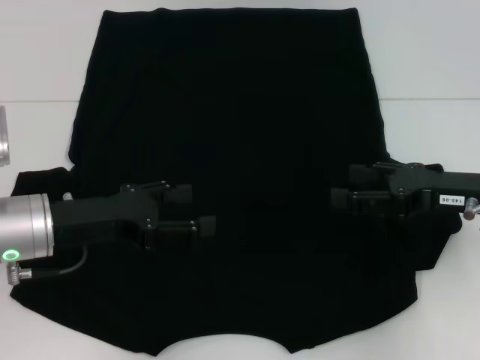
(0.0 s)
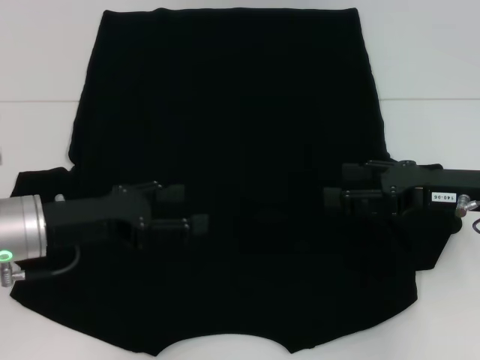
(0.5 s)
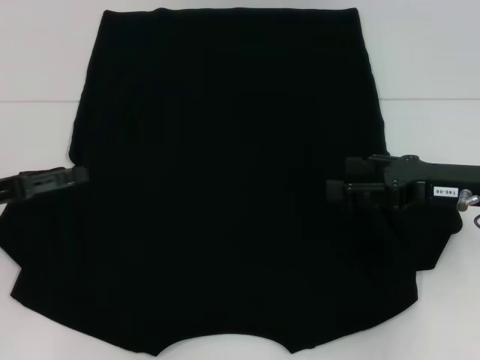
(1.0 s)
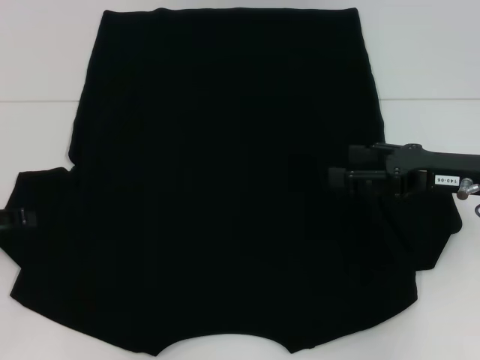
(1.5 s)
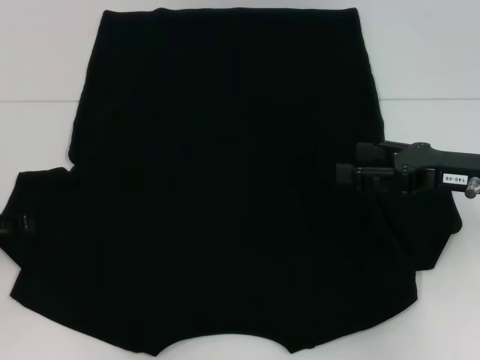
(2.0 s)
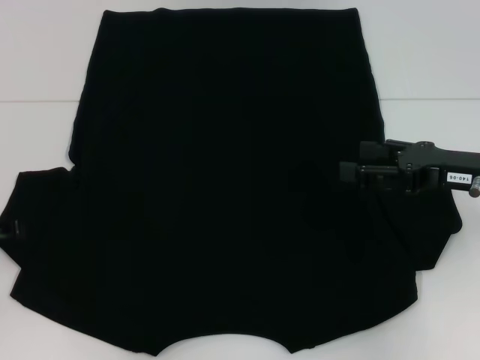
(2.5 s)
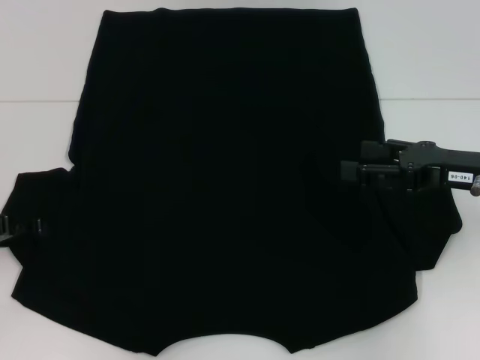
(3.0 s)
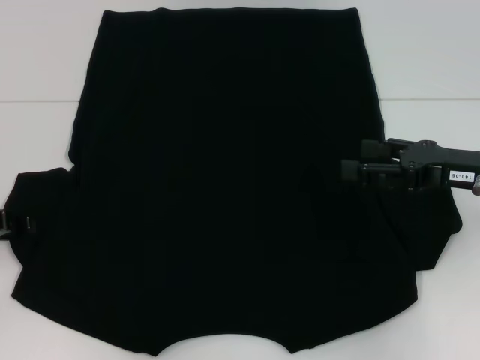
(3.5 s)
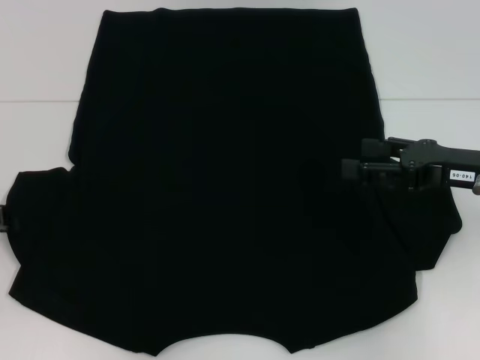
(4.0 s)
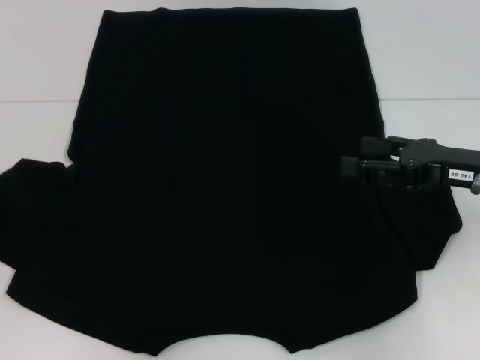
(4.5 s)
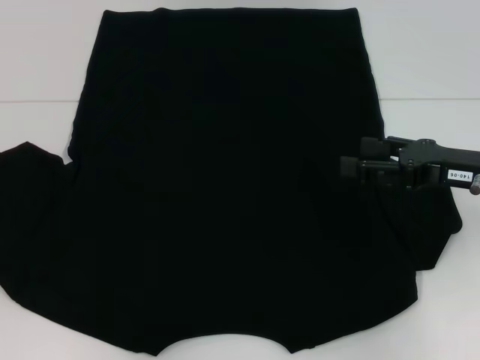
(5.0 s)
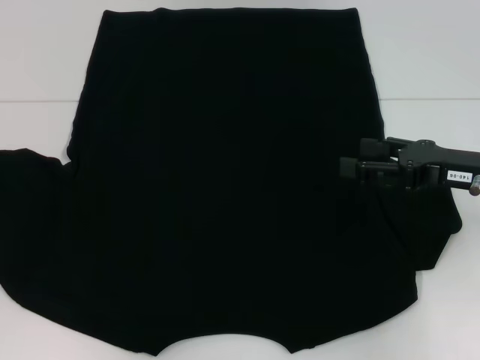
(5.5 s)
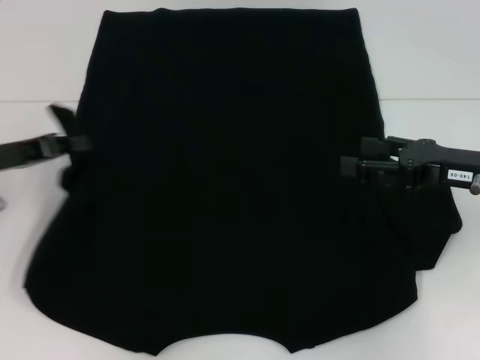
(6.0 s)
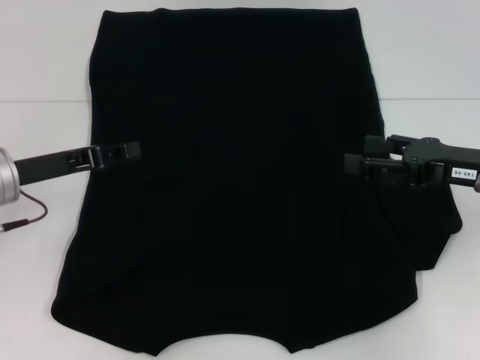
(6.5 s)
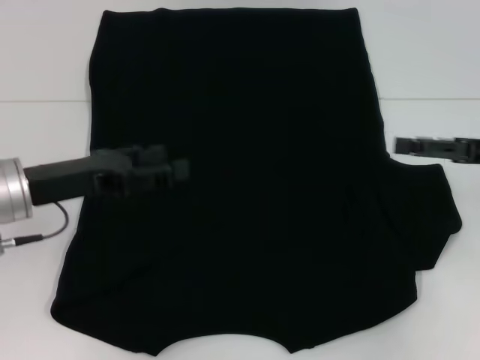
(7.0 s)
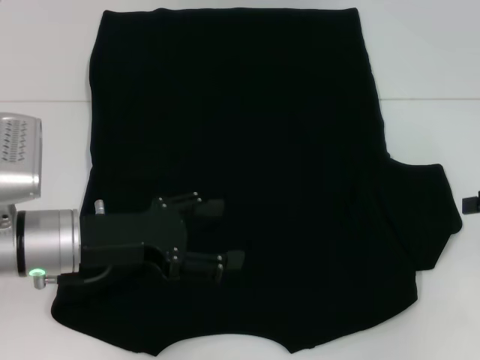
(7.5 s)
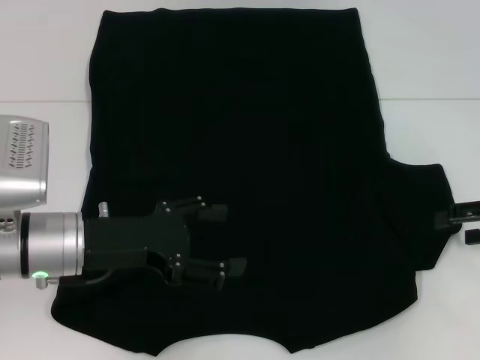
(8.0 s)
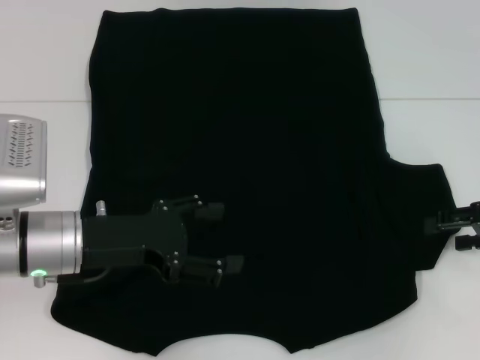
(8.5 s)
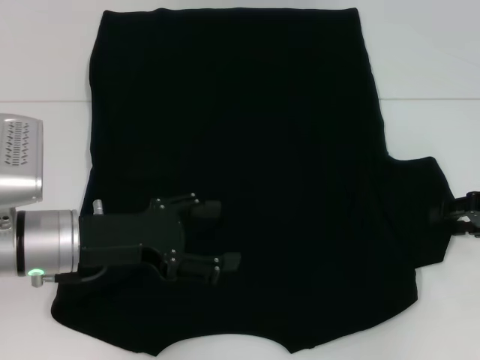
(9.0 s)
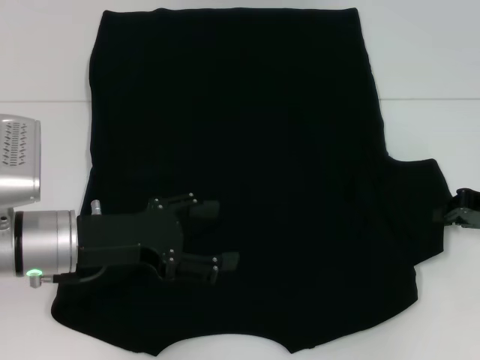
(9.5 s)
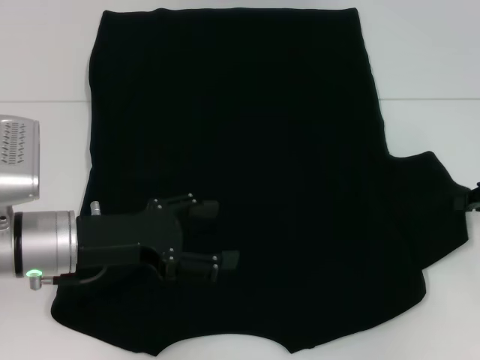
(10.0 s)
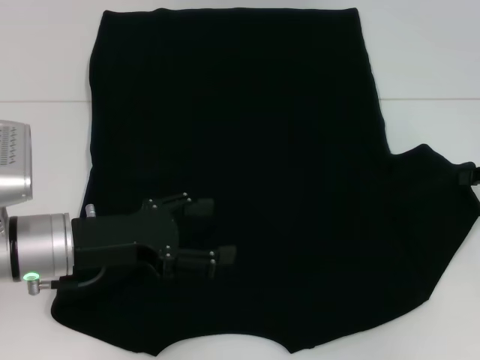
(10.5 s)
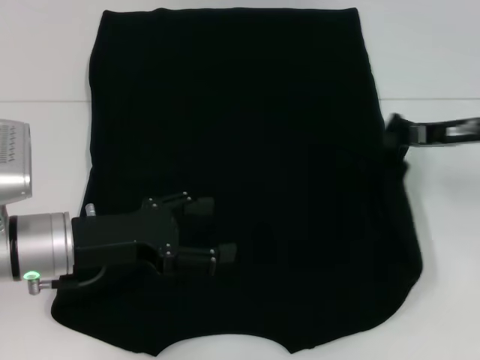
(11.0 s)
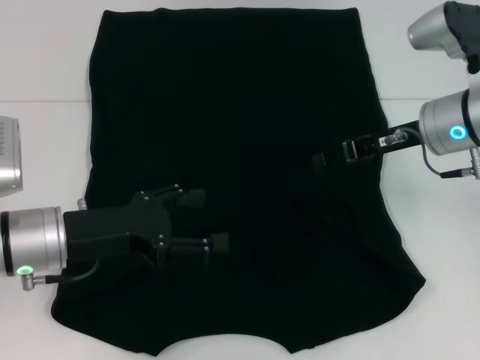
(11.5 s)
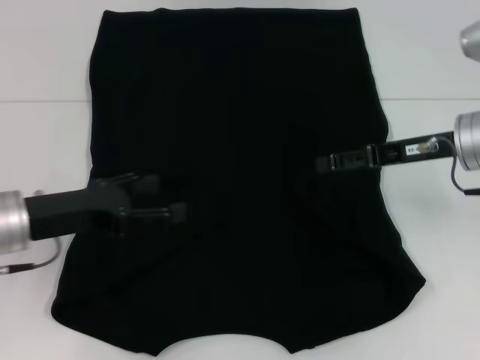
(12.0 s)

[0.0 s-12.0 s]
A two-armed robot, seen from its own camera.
Step, 0.0 to 6.5 s: Fold the bottom left sleeve with your left hand.
Step, 7.0 to 11.5 s: Fold the bottom right sleeve with your right hand.
0.0 to 2.0 s: The left gripper moves to the left, approximately 15 cm.
4.0 to 6.0 s: The left gripper shifts by some 5 cm.
6.0 to 8.0 s: Both grippers move to the right, roughly 10 cm. The left gripper opens up.
8.0 to 10.0 s: The right gripper closes.
10.0 to 12.0 s: The right gripper shifts some 10 cm to the left, and opens.

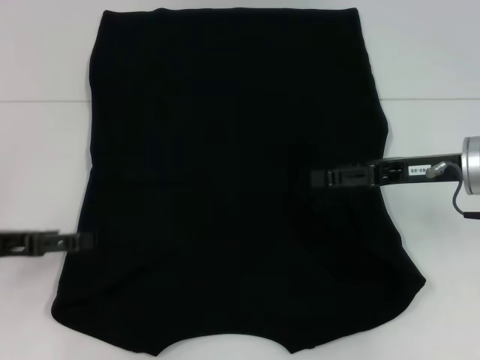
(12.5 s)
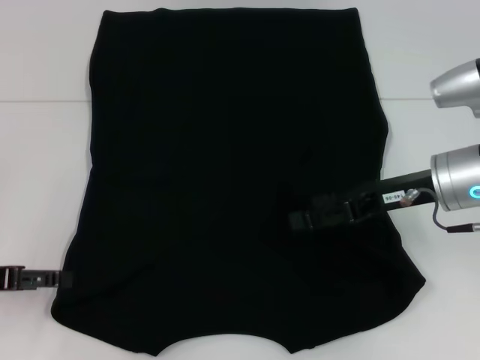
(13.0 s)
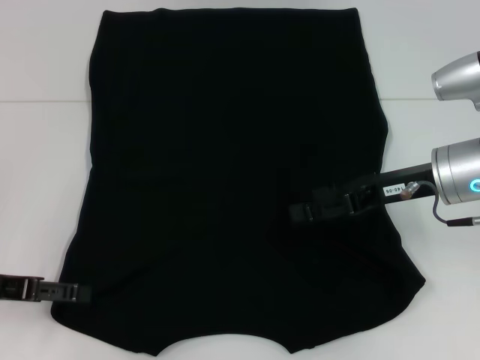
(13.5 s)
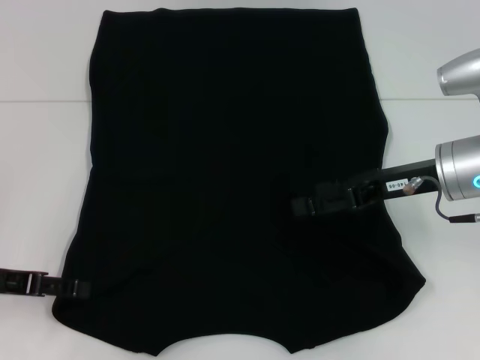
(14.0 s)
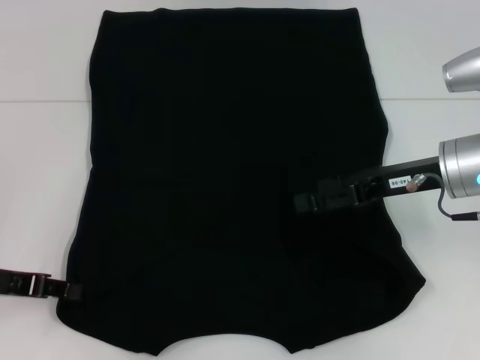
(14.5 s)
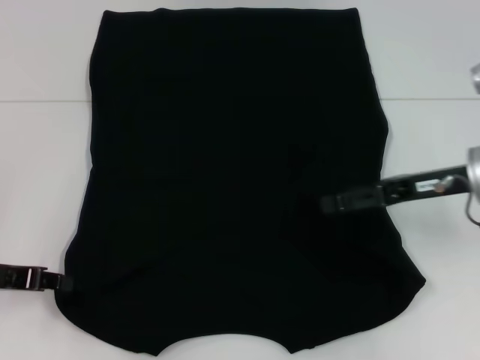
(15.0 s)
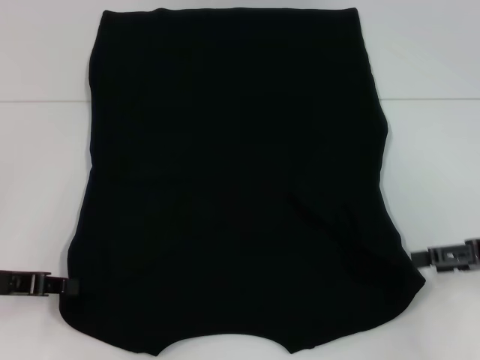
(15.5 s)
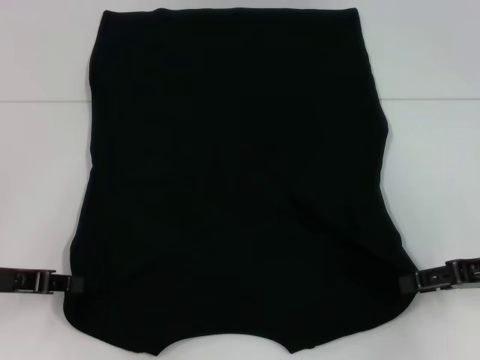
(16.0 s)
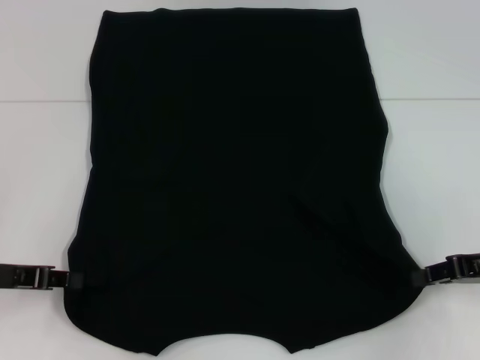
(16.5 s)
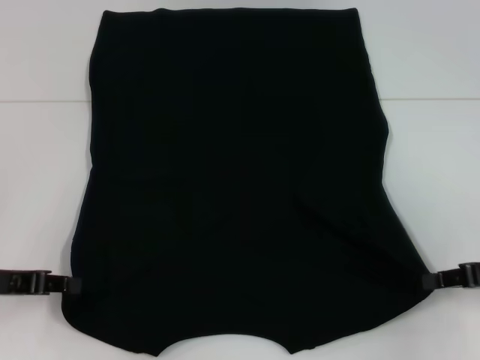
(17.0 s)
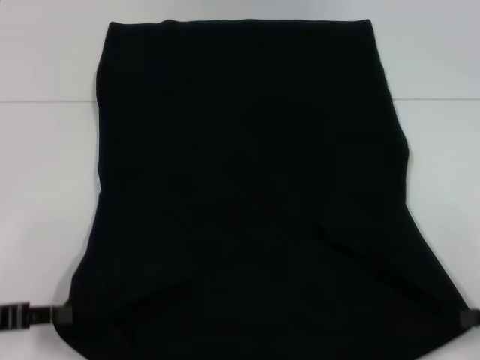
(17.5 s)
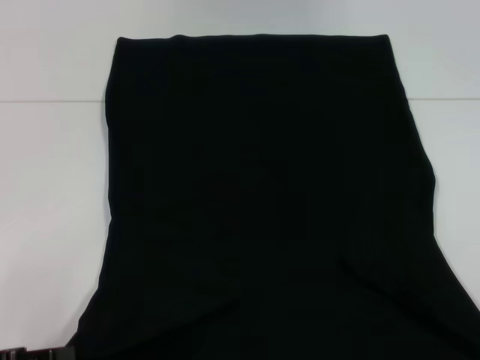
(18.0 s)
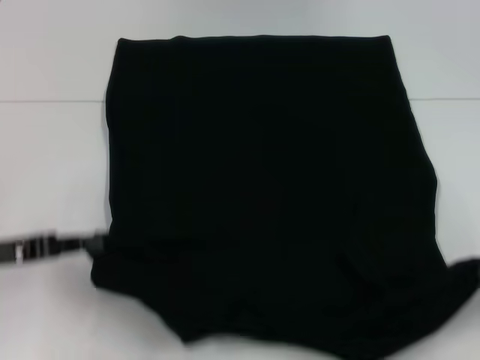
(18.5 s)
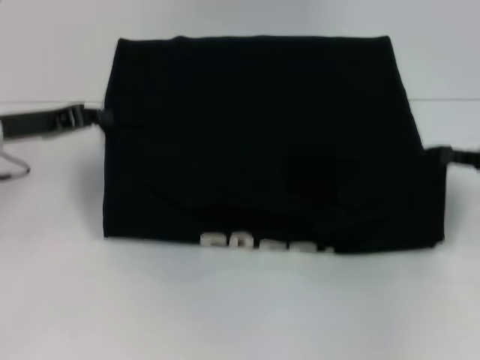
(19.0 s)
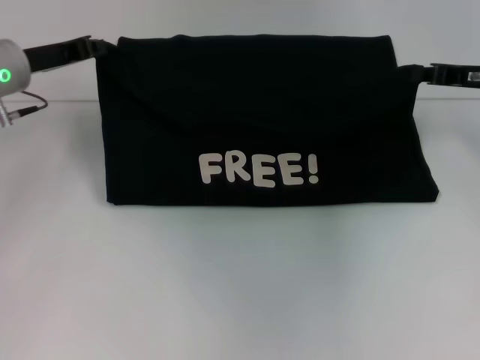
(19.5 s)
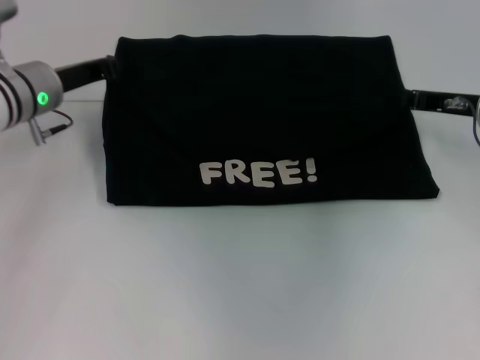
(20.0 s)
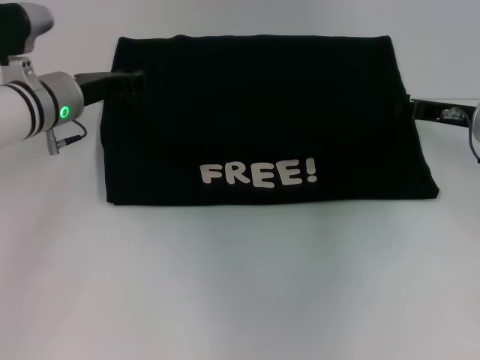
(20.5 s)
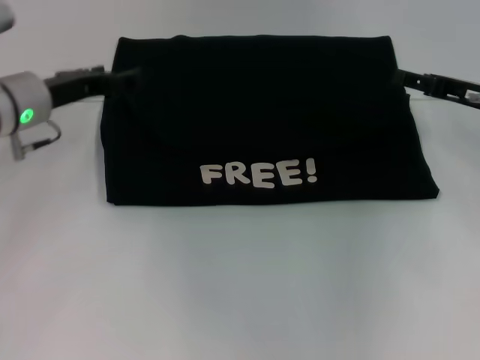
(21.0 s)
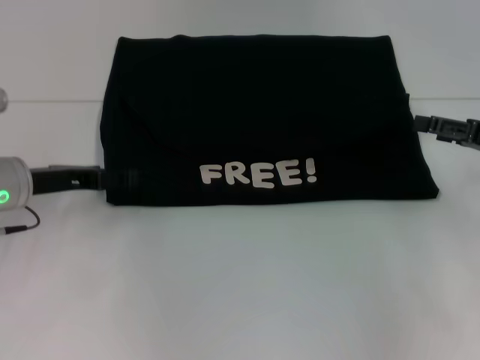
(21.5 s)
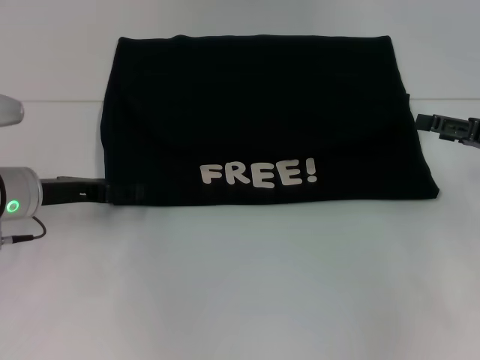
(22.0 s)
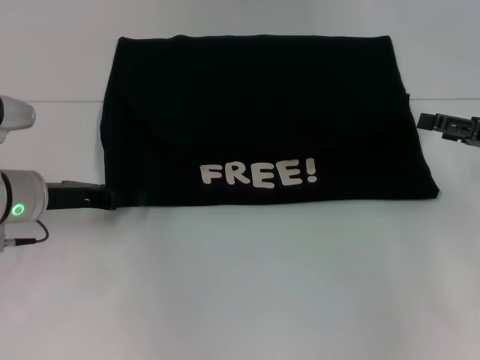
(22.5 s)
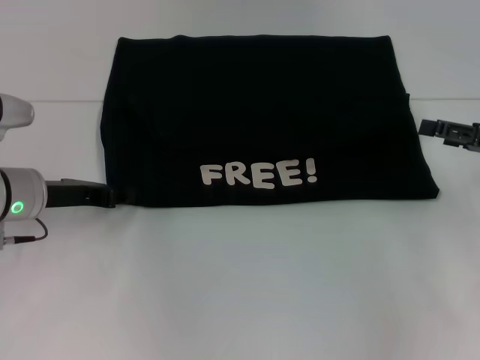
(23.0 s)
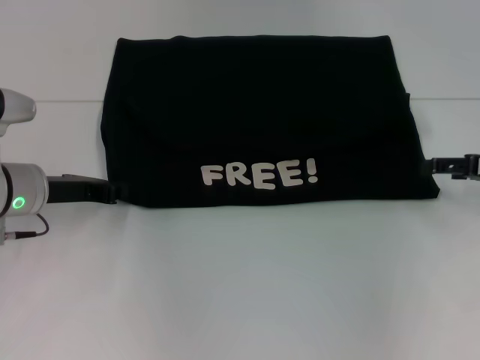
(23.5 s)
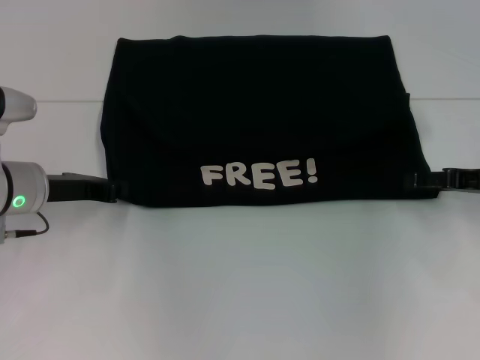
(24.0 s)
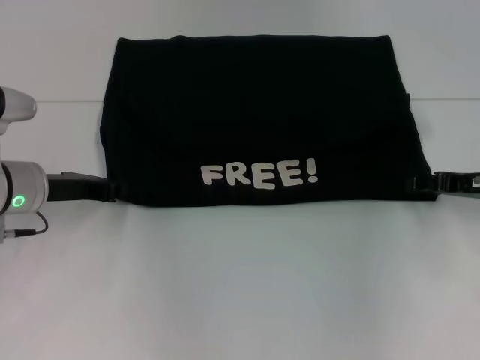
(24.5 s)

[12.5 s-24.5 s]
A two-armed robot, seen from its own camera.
Step, 12.5 to 15.0 s: Grab the bottom left corner with your left hand.
Step, 15.5 to 16.5 s: Grab the bottom right corner with your right hand.
Step, 17.0 to 20.5 s: Fold the clothes with your left hand.
Step, 17.0 to 20.5 s: Fold the clothes with your right hand.
12.5 to 14.5 s: The left gripper closes up.
14.5 to 16.5 s: The right gripper goes roughly 10 cm to the right and backward, and closes up.
16.5 to 18.5 s: The right gripper moves backward and to the right, about 10 cm. Meanwhile the left gripper reaches approximately 10 cm backward, then returns.
18.5 to 20.5 s: The right gripper heads forward and to the left, covering some 20 cm. The left gripper is displaced forward and to the right by some 20 cm.
20.5 to 22.5 s: The right gripper shifts some 10 cm to the right and backward, and opens its fingers, while the left gripper heads backward, covering approximately 10 cm, and opens its fingers.
22.5 to 24.5 s: The left gripper closes up; the right gripper ends up some 5 cm from where it was.

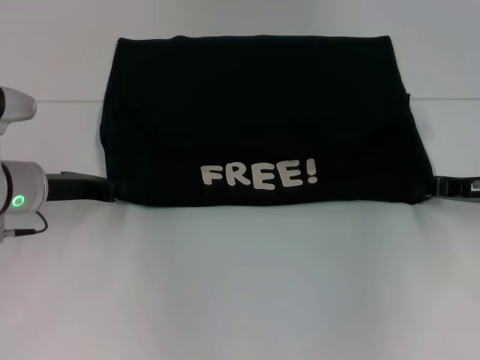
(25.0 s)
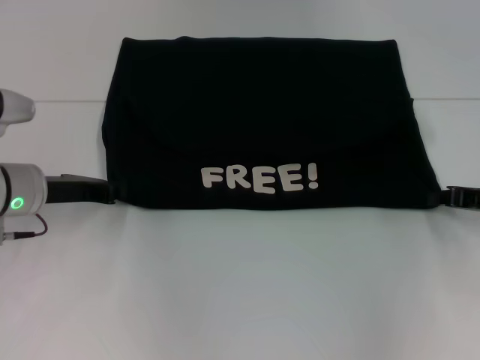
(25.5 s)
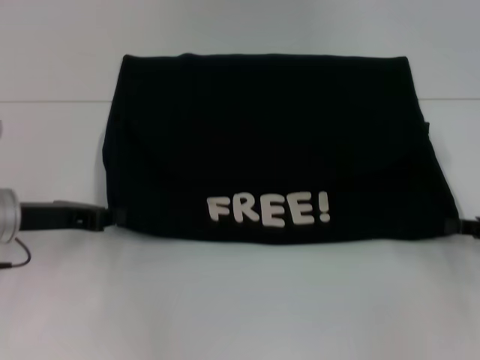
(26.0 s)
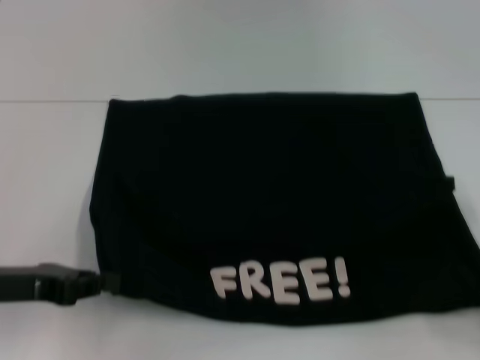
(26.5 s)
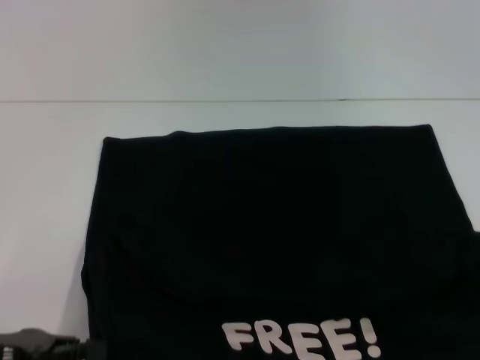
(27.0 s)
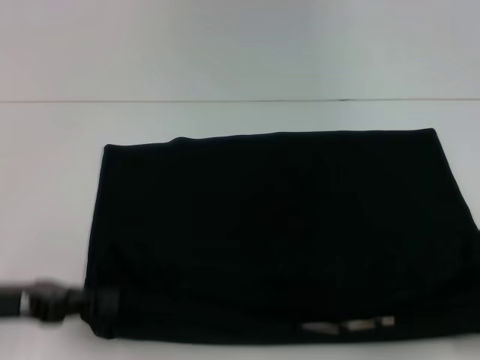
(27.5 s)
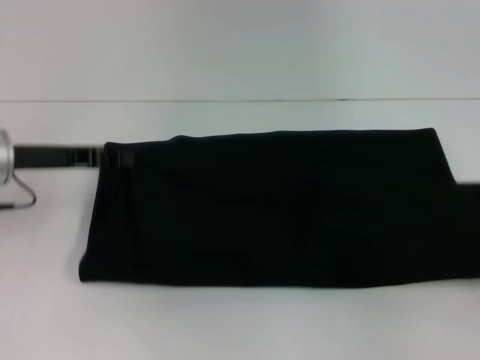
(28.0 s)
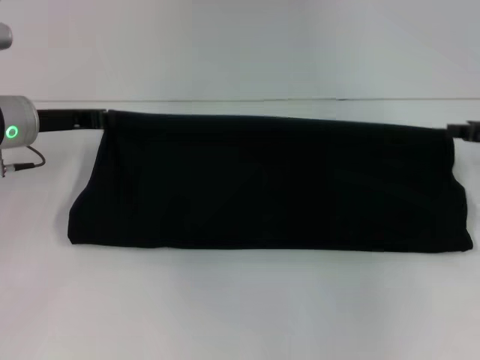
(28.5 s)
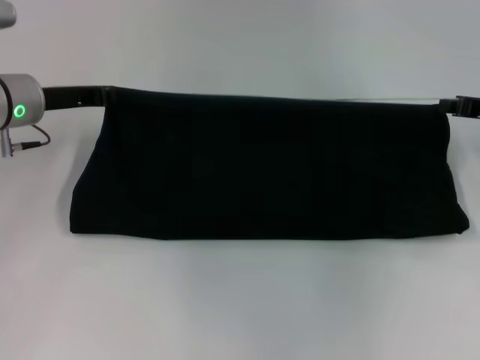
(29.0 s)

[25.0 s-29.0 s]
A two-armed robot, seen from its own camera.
Step, 25.0 to 27.0 s: Pull the clothes with your left hand.
Step, 25.0 to 27.0 s: Pull the clothes with your right hand.
25.0 to 27.0 s: The right gripper travels backward and to the right by approximately 25 cm, while the left gripper is displaced backward by approximately 15 cm.
27.0 to 29.0 s: Both grippers move forward, some 25 cm.
